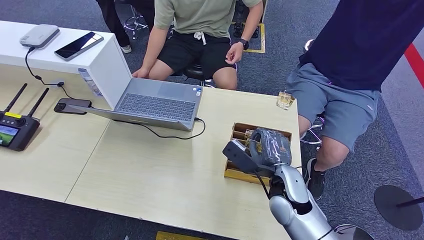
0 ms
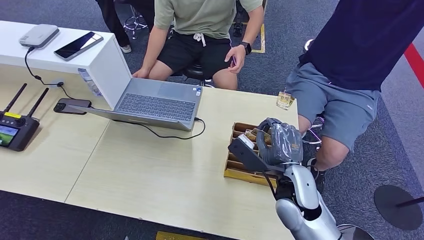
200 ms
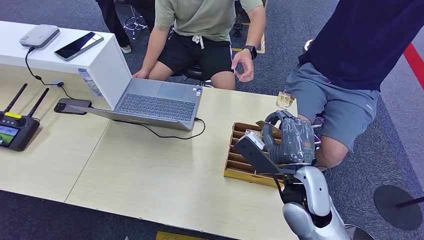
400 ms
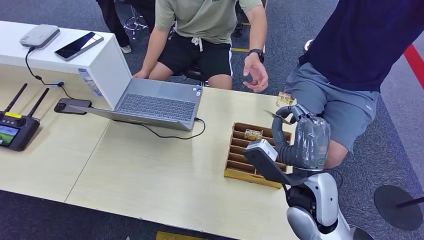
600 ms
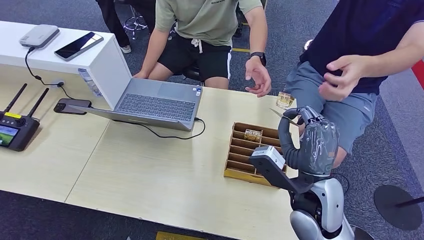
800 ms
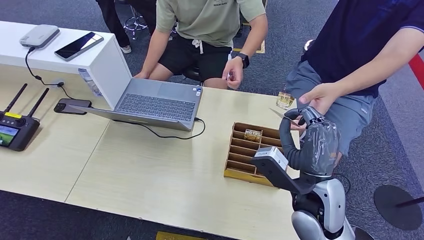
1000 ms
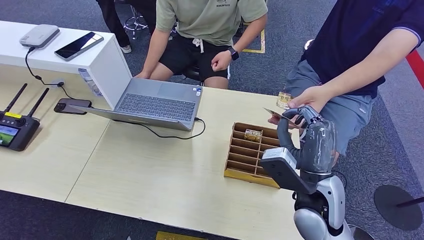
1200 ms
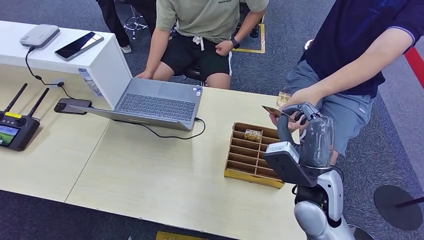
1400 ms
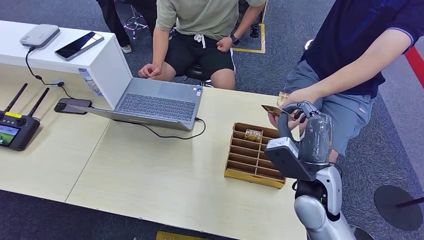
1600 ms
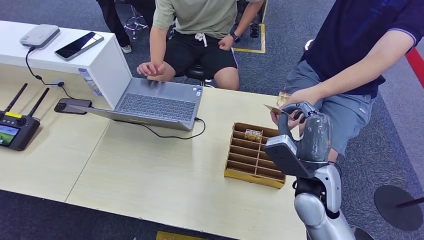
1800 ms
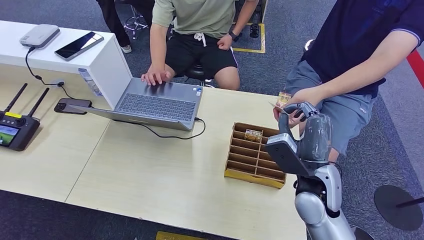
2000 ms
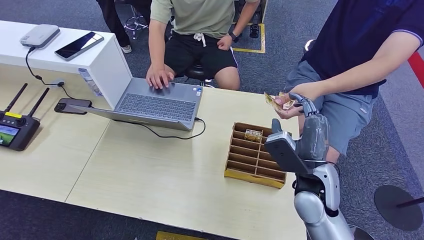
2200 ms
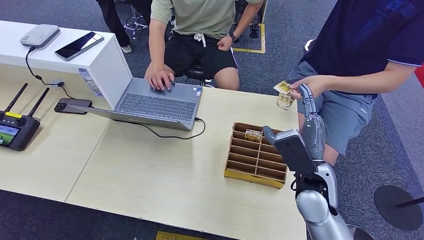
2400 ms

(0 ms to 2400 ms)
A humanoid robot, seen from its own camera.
Step, 800 ms - 2400 ms: Hand the room card to the target.
0 ms - 1200 ms: The right hand moves upward, roughly 10 cm.
1200 ms - 2400 ms: The right hand moves about 5 cm.
